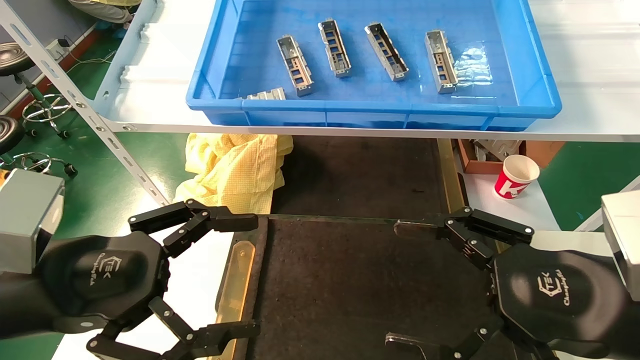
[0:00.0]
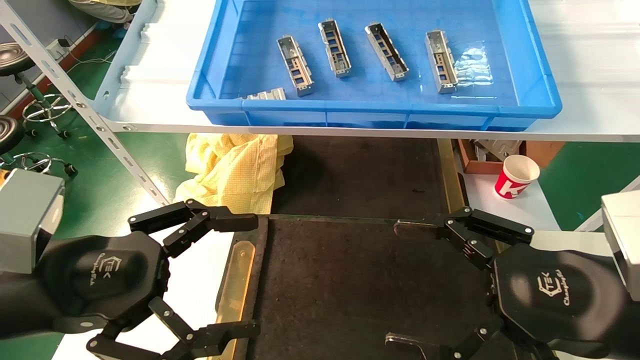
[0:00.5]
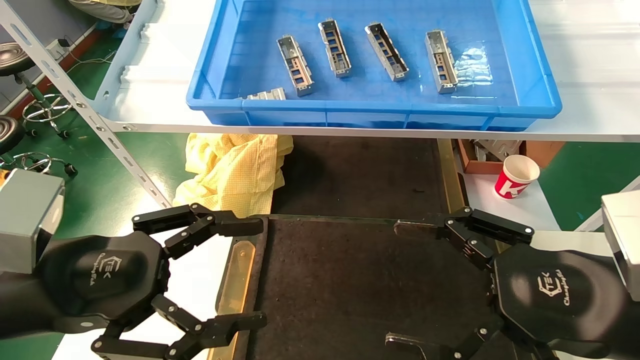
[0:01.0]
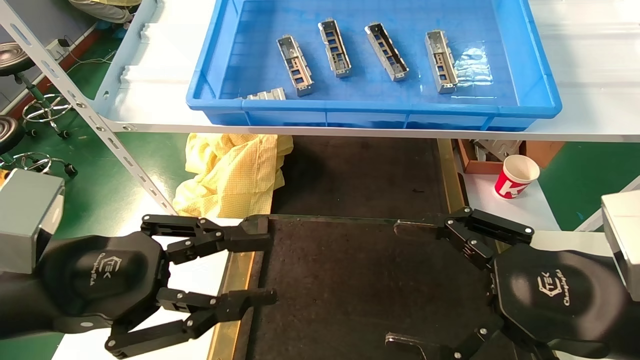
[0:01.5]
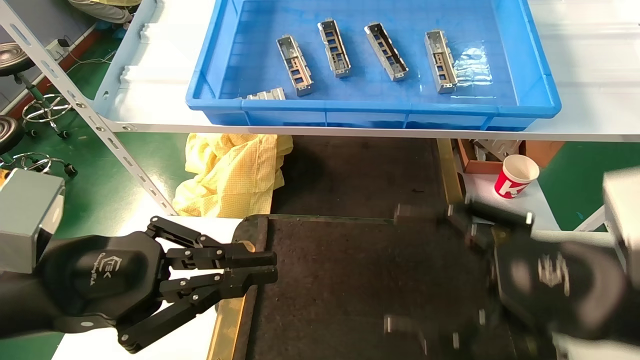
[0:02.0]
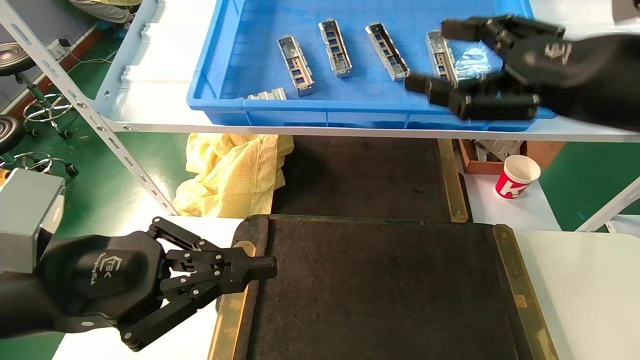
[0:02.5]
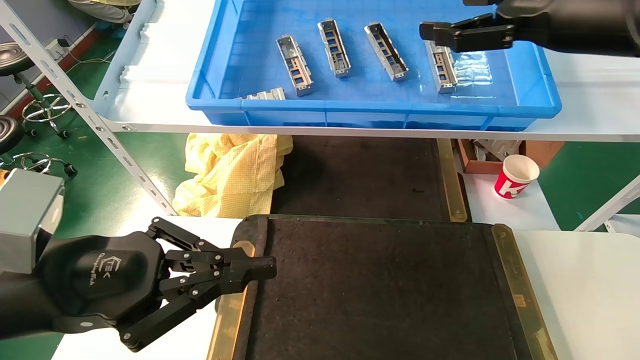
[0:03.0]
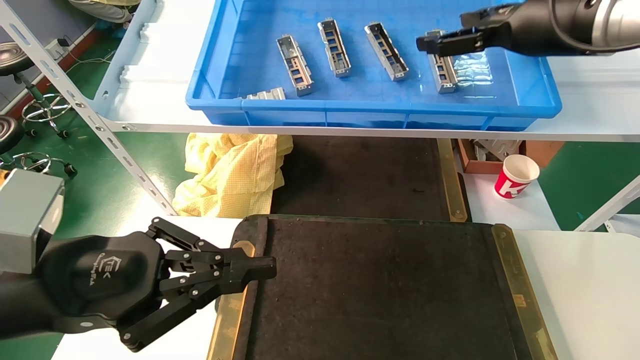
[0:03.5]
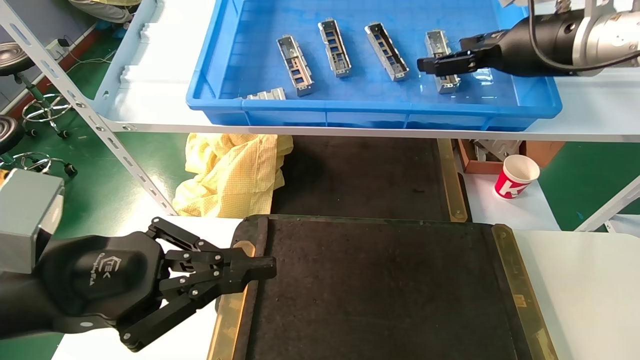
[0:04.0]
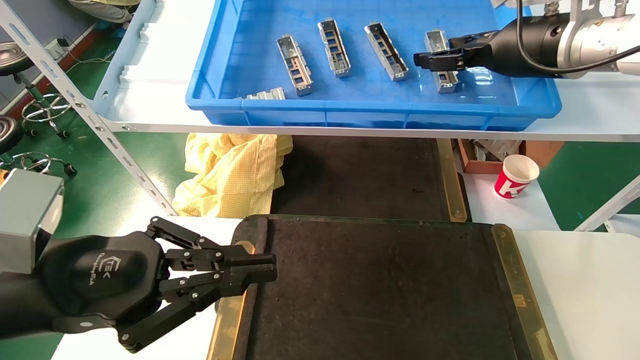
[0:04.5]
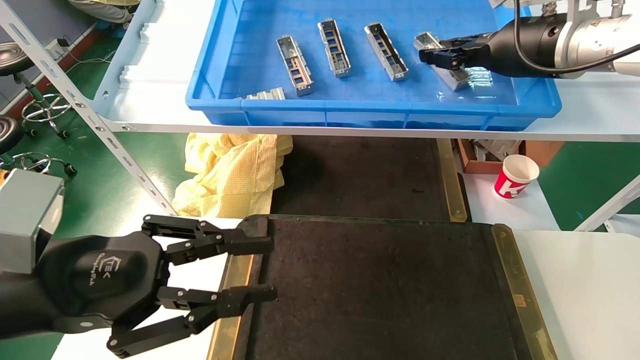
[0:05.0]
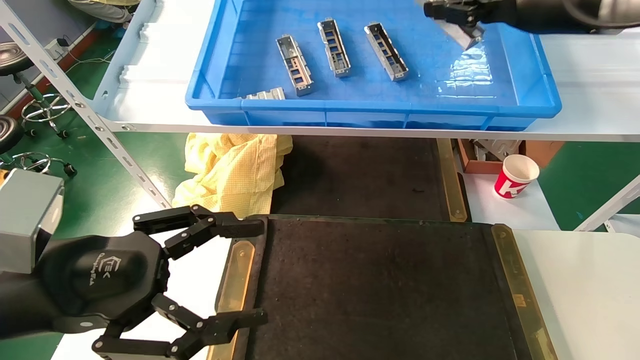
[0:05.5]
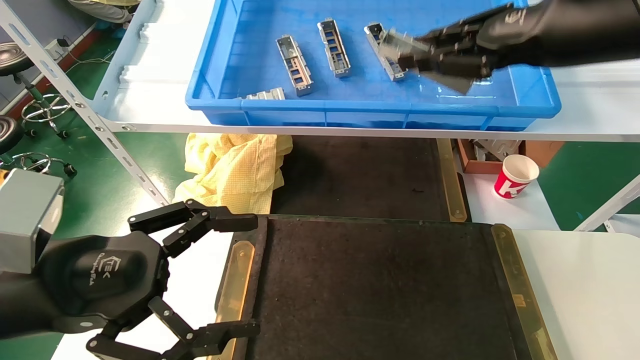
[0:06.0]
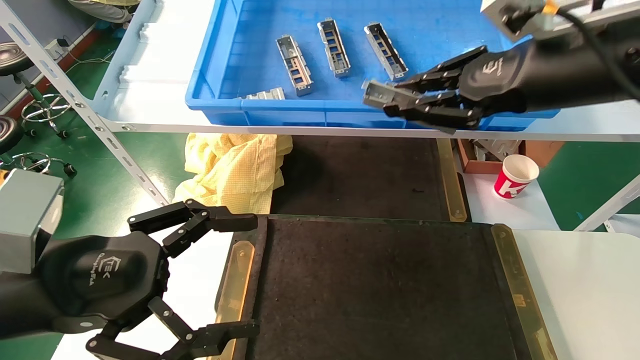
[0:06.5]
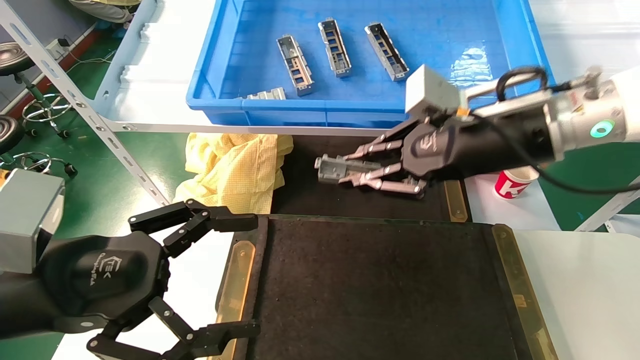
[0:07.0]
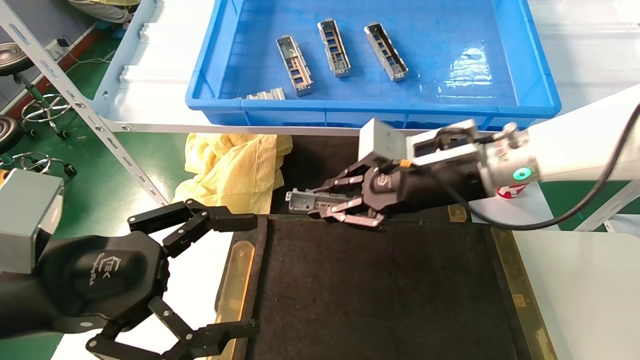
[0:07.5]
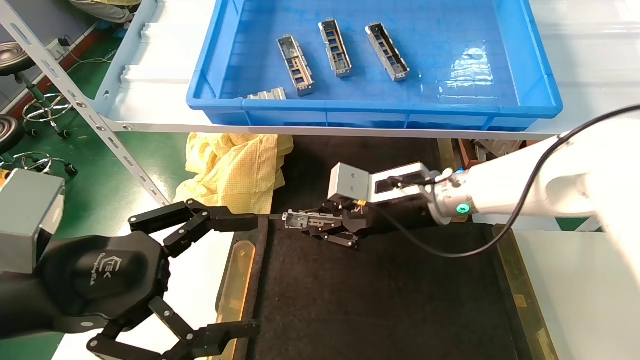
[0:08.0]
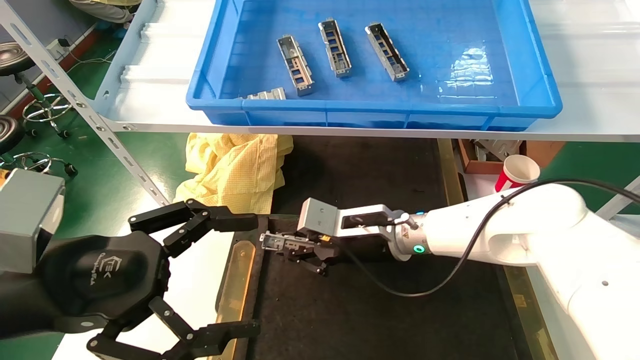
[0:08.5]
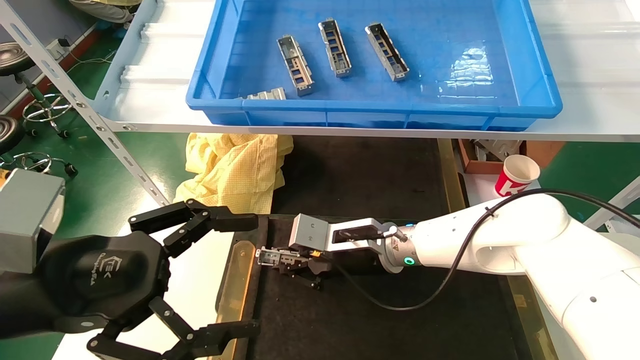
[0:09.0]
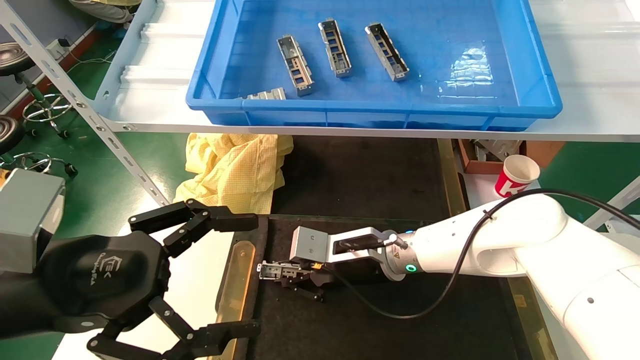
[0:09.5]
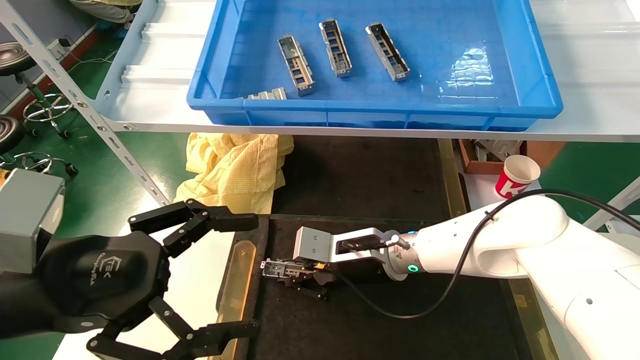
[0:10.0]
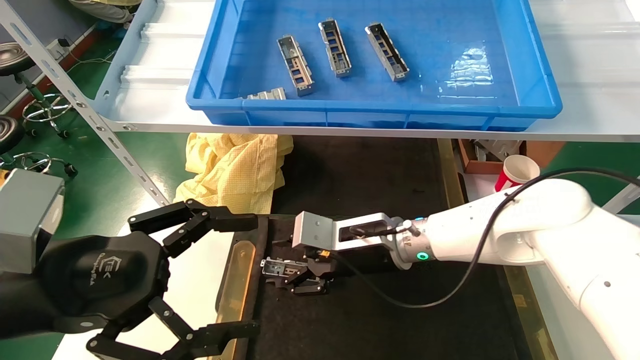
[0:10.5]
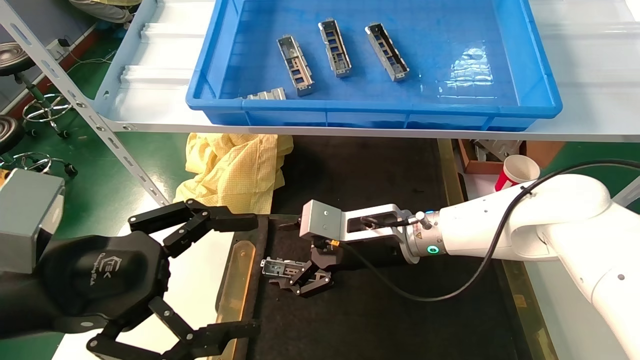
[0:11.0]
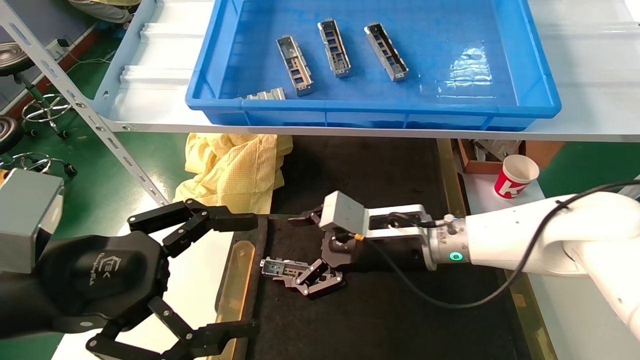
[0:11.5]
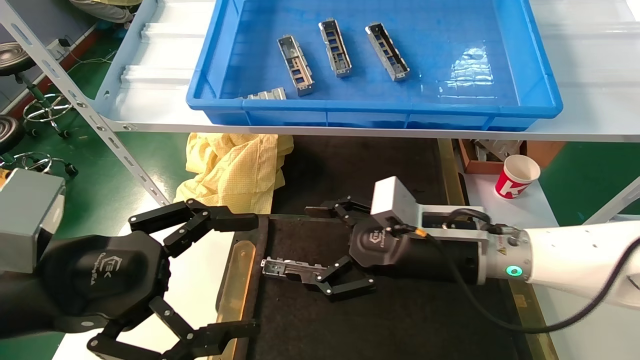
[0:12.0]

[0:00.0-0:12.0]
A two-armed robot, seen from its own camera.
Task of the whole recording: grasp the part and place them on the black container.
Step, 0:02.5 to 0:05.0: Pick up and lift the front USB bracket from the feeding area.
Step, 0:05.5 to 0:10.0: Place the front USB bracket into the box.
0:00.0 to 0:02.0: The left gripper closes its fingers.
0:02.0 to 0:04.0: The right gripper heads forward and upward, covering approximately 25 cm.
0:04.0 to 0:06.0: The right gripper is displaced backward by about 10 cm, and closes its fingers. Meanwhile the left gripper opens its fingers.
0:06.0 to 0:08.0: The right gripper goes approximately 30 cm downward, to the left and forward.
0:08.0 to 0:10.0: The right gripper moves downward, approximately 10 cm.
0:10.0 to 0:12.0: The right gripper heads to the right, backward and upward, covering approximately 15 cm, and opens its fingers.

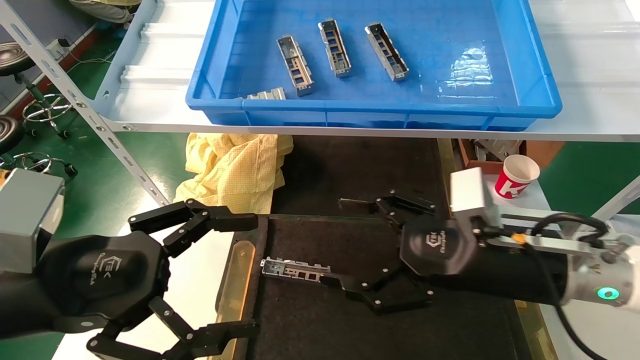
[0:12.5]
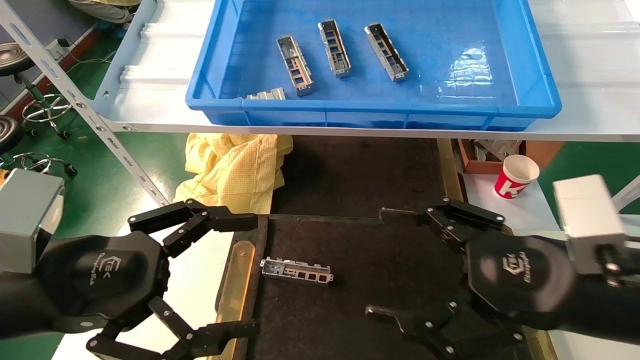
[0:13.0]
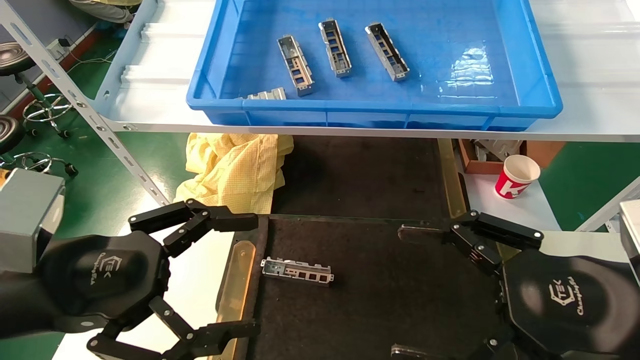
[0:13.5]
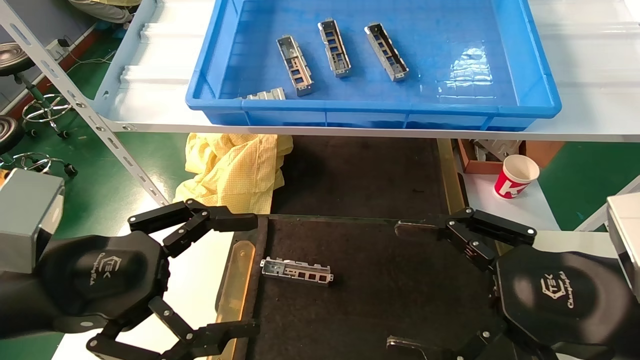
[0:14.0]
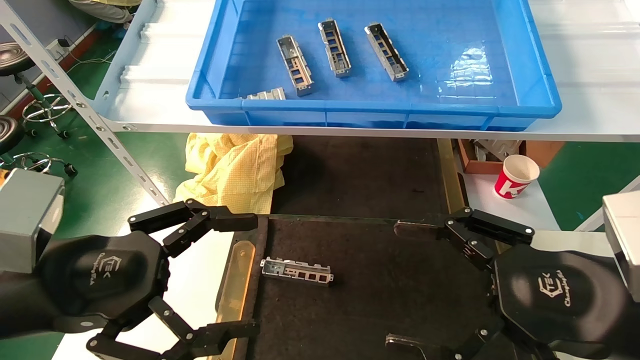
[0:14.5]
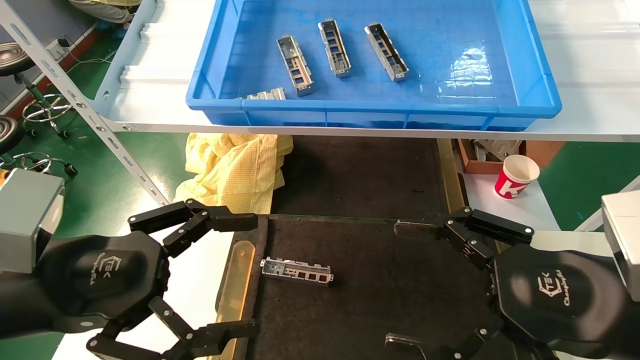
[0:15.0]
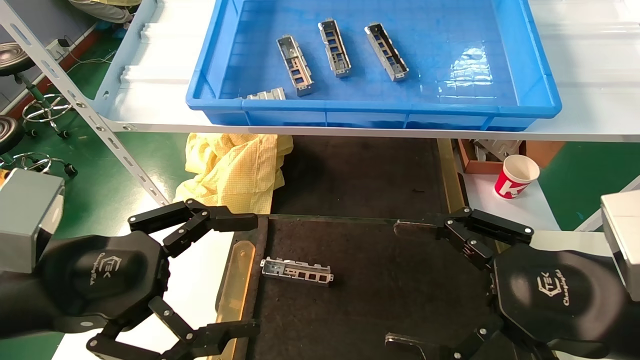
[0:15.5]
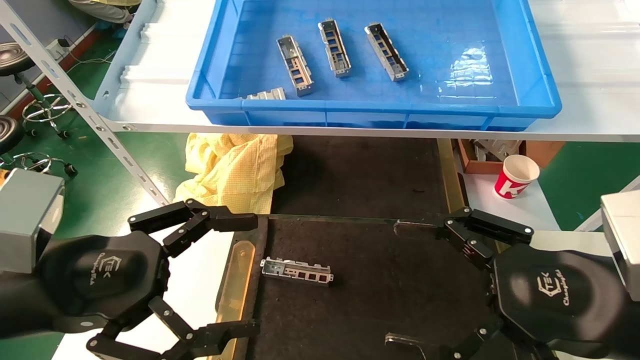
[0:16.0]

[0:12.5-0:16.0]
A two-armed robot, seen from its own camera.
Task of the whole recording: grasp the part and place them on the black container.
0:12.5 to 0:14.5: The right gripper shifts about 10 cm backward and to the right.
0:14.5 to 0:16.0: Neither gripper changes place.
